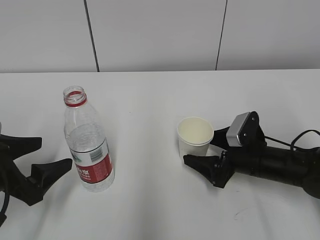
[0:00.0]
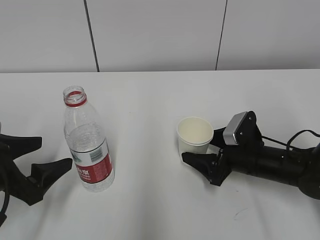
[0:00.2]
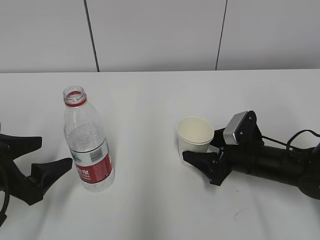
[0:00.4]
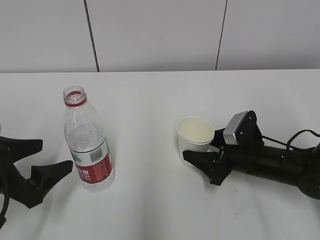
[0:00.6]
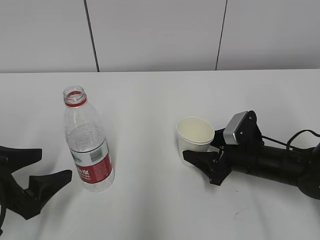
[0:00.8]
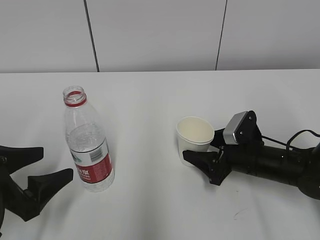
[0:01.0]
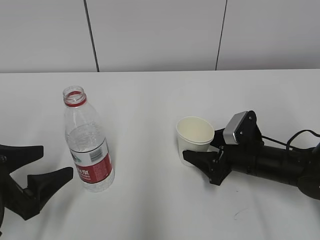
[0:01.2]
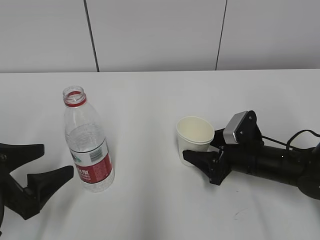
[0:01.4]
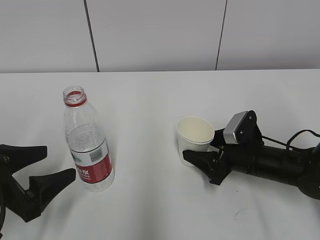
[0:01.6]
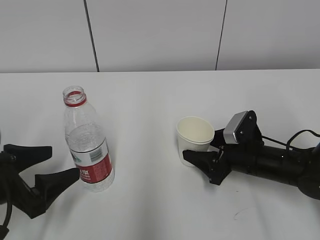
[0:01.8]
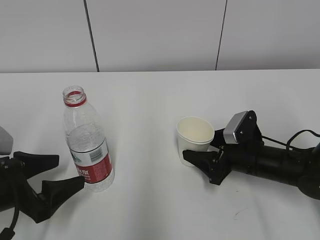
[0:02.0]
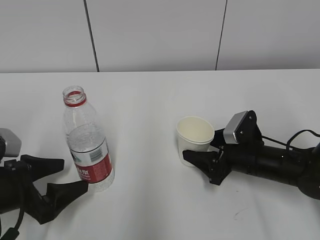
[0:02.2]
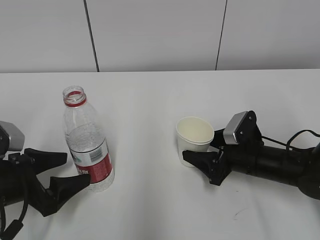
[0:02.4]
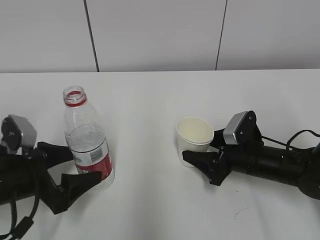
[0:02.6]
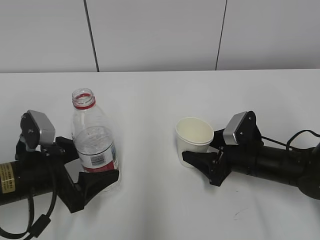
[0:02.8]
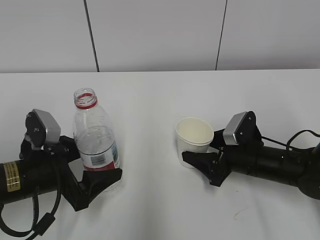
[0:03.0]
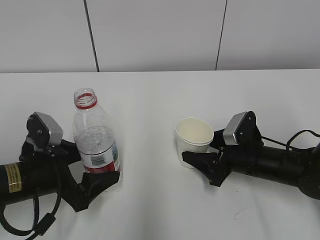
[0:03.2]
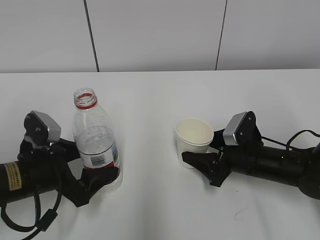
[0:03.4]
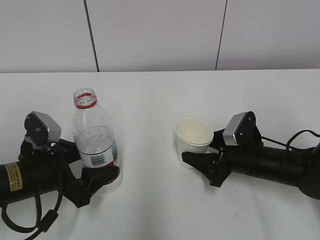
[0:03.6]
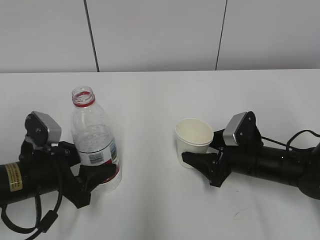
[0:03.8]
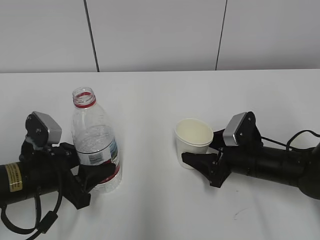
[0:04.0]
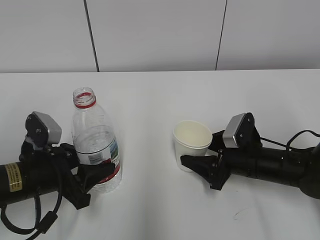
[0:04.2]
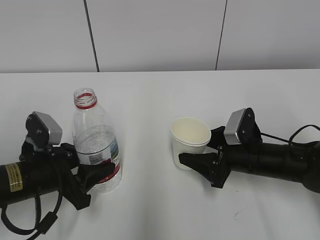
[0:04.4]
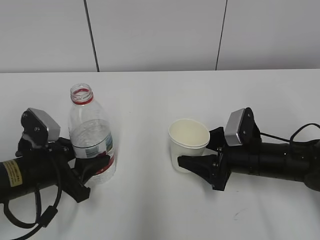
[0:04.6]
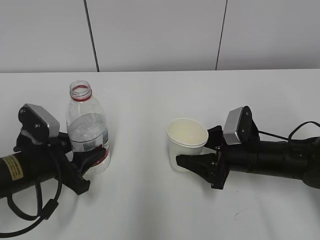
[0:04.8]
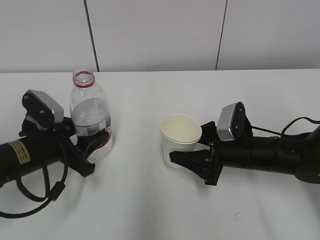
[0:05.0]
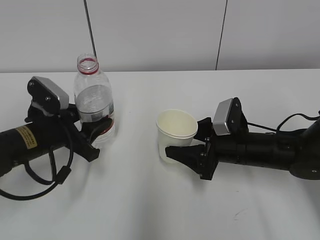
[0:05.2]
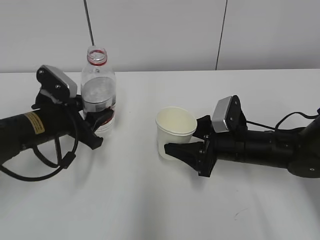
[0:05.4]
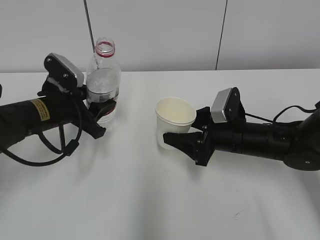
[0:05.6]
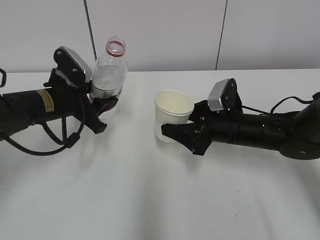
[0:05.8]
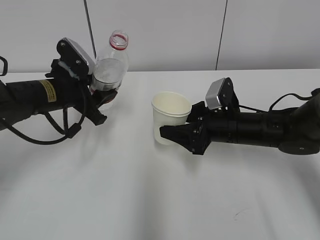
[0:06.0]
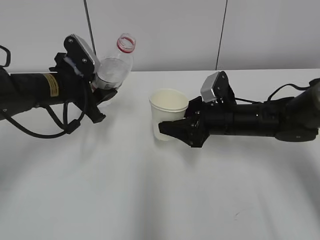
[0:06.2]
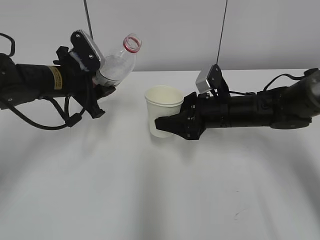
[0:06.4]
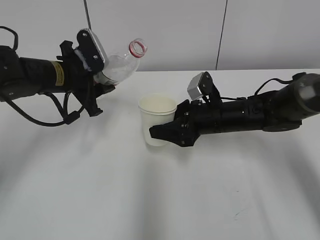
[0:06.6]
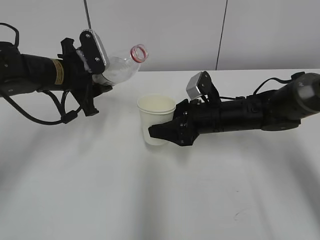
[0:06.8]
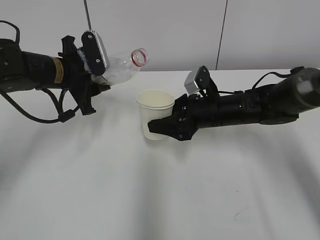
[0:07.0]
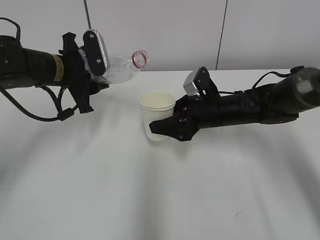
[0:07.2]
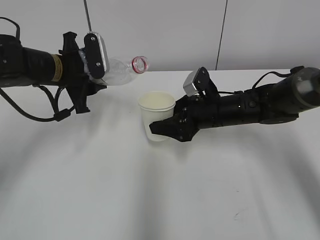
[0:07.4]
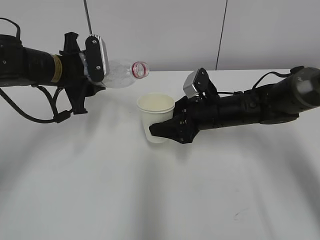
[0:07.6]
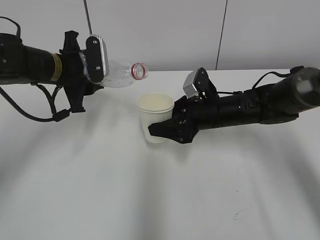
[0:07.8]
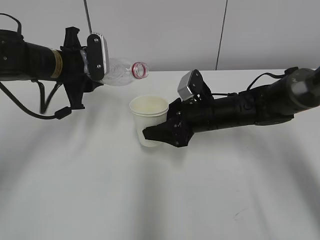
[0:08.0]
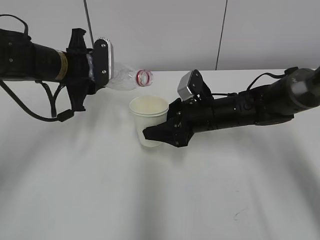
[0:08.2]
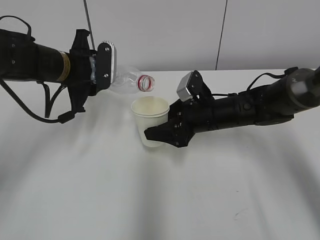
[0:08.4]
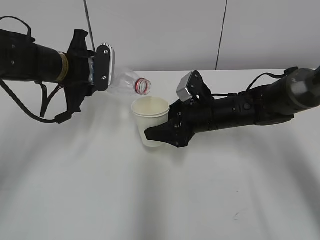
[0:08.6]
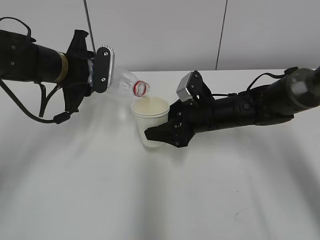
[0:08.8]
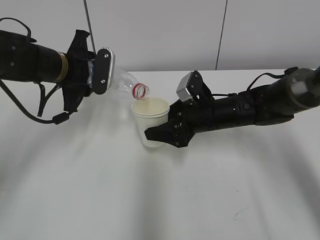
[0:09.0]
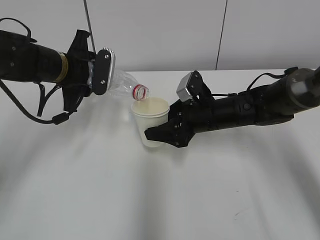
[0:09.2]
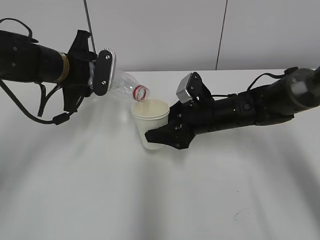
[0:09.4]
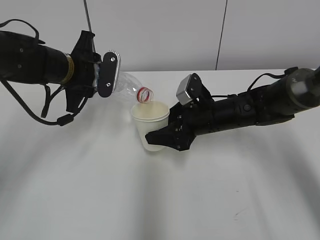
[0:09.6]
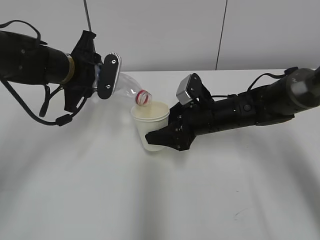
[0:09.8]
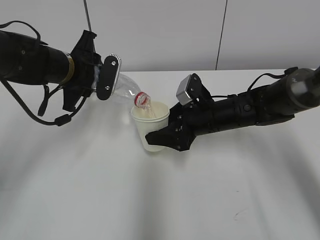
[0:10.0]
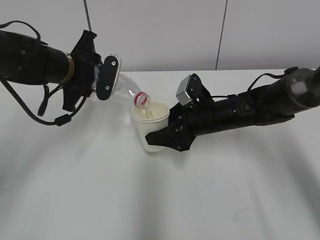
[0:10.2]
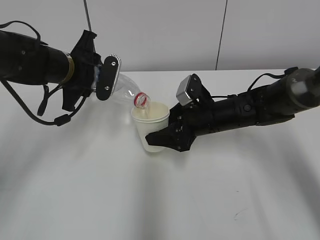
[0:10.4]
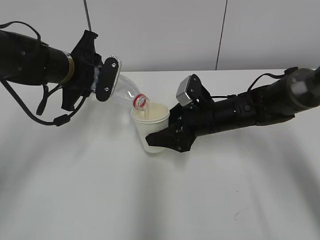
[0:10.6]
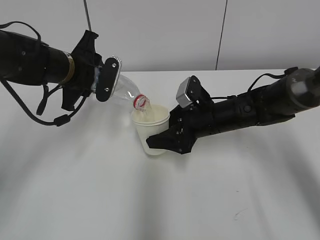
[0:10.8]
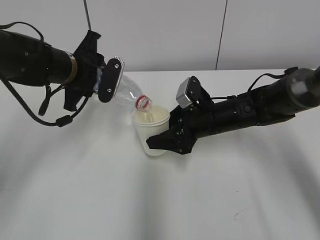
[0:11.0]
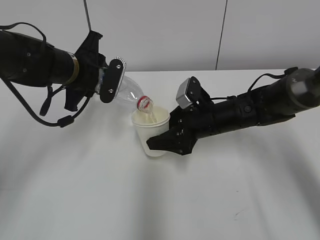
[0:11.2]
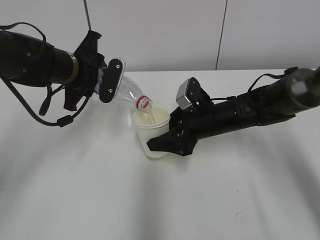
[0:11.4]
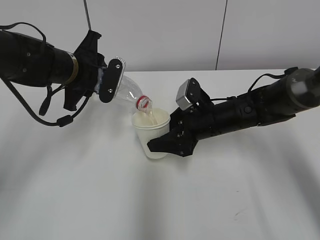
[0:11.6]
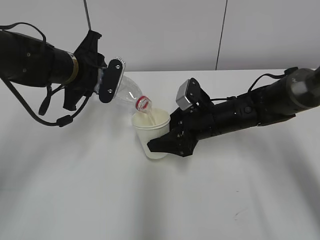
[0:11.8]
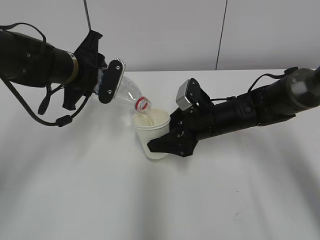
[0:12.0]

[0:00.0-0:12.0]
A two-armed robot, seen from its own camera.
Step, 0:02.2 to 0:06.6: Lift the paper cup with the right hand.
Step, 0:06.8 to 0:11.0: Fill water with the right hand.
Step, 0:06.8 to 0:11.0: Pour water with the left hand.
0:00.0 to 0:01.6: The right gripper closes up.
0:01.6 to 0:03.0: The left gripper shifts some 5 cm to the right.
0:03.0 to 0:04.4: The left gripper closes its fingers.
0:04.4 to 0:06.0: The right gripper changes place by approximately 5 cm. The left gripper moves forward and upward, roughly 15 cm.
0:07.6 to 0:09.0: The grippers stay close to where they were, moving slightly.
0:09.0 to 0:12.0: The grippers make only small movements.

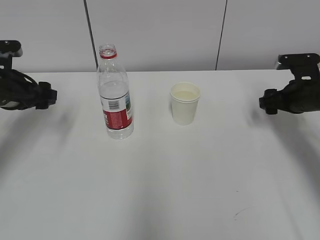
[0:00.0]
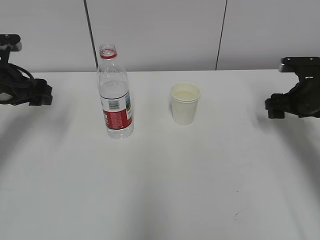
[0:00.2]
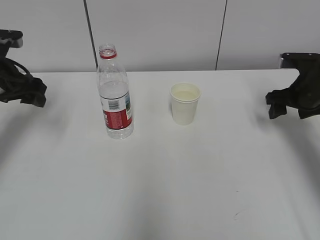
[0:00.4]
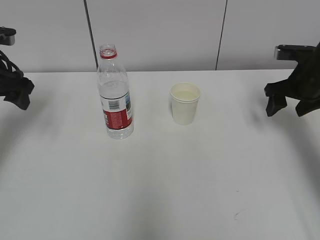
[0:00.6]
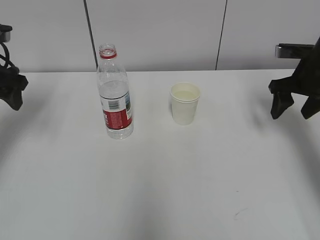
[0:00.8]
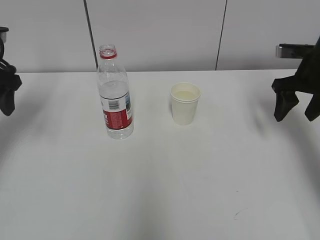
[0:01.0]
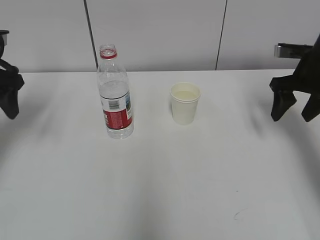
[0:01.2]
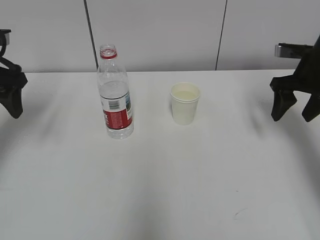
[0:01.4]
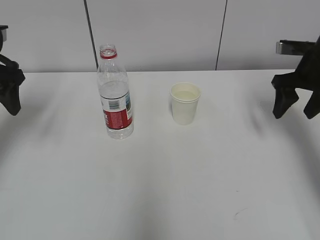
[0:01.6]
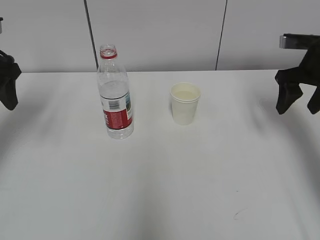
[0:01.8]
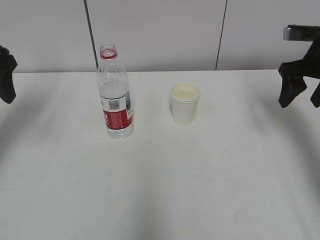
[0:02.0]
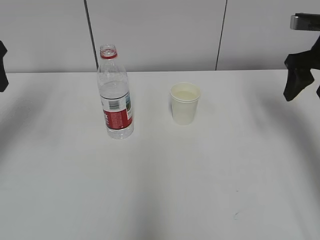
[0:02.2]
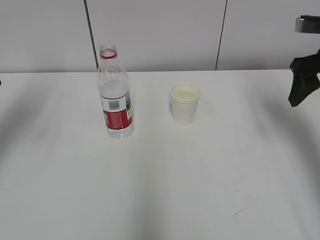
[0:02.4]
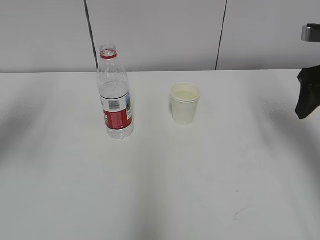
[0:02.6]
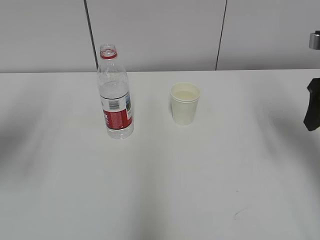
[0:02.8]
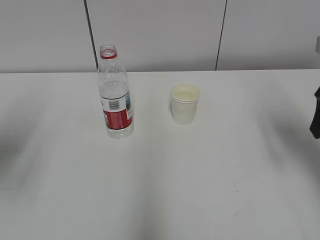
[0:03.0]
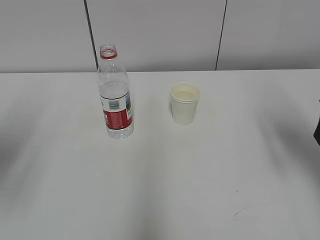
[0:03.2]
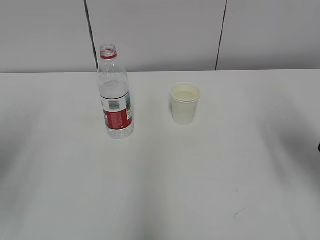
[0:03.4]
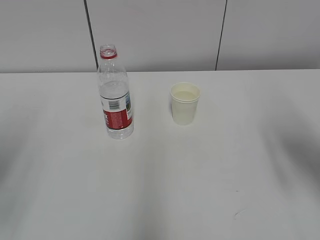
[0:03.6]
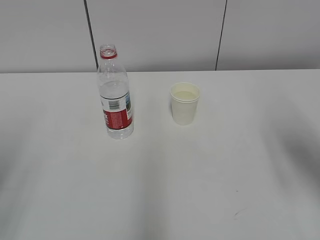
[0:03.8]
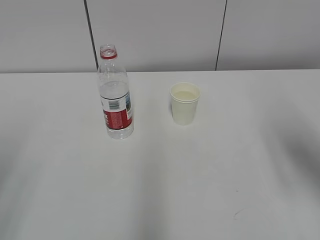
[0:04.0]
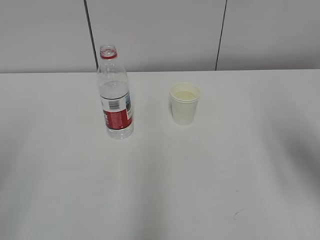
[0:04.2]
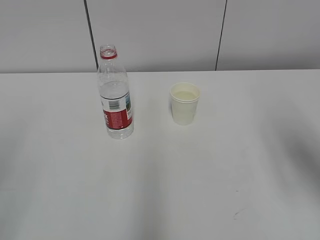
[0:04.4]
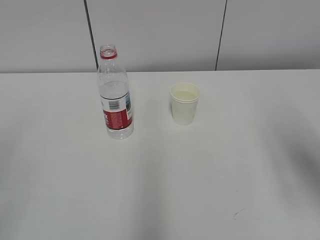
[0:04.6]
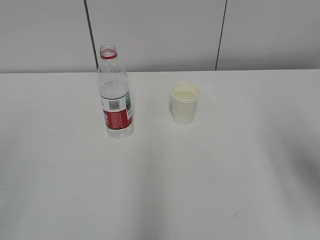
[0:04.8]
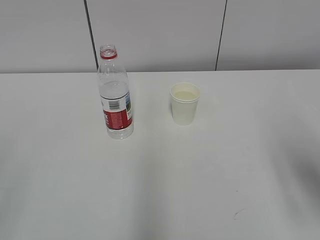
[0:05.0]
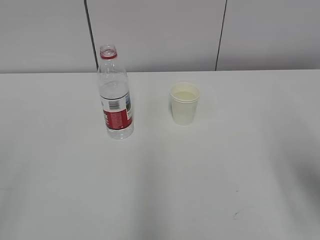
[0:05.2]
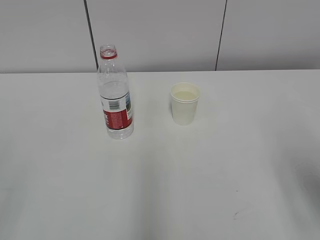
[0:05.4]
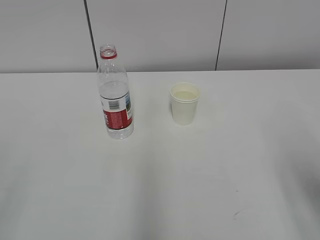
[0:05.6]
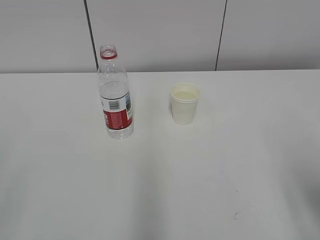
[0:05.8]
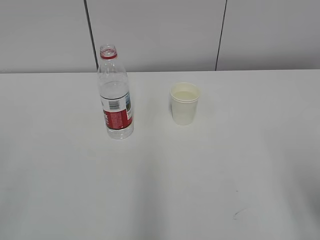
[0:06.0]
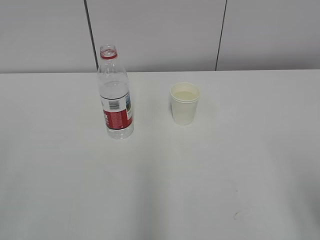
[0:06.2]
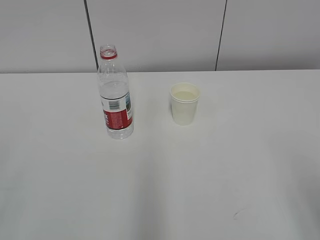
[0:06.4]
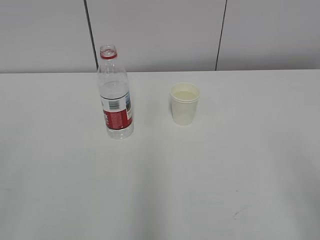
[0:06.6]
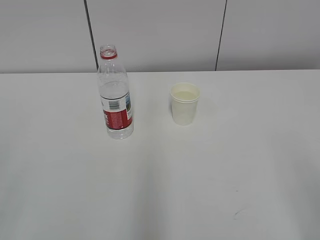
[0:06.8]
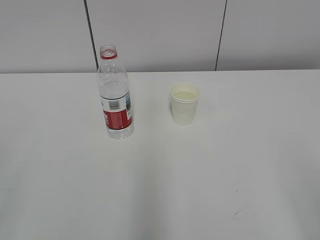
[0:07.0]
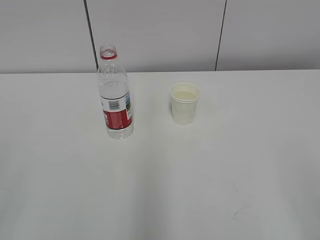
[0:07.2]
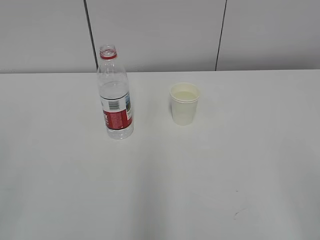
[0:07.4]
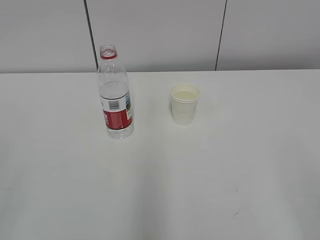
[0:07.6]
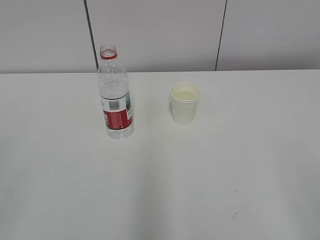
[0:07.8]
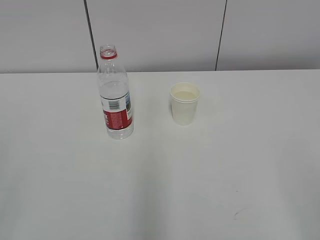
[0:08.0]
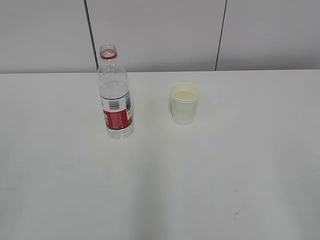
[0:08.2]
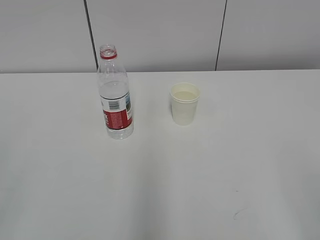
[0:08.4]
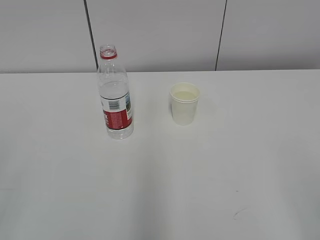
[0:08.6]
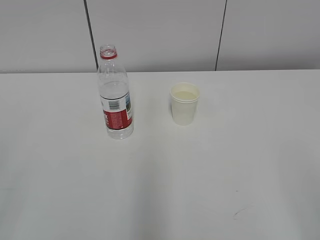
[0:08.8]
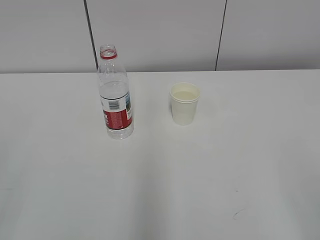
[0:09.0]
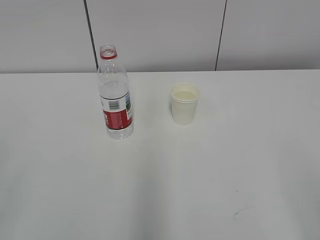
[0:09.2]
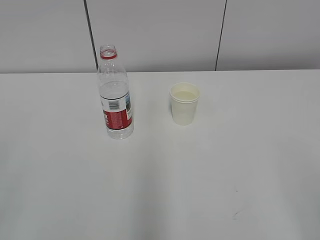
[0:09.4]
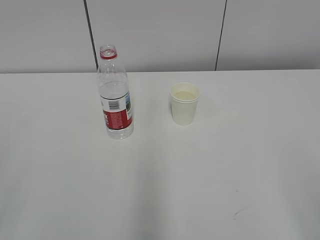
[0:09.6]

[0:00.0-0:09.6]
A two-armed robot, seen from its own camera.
0:00.0 to 0:01.6: Both grippers travel together upward, some 10 cm.
0:01.6 to 0:03.2: The left gripper shifts roughly 15 cm backward, while the right gripper travels backward and upward by some 15 cm.
0:03.2 to 0:04.8: The right gripper moves backward, about 10 cm. Meanwhile the left gripper heads backward, covering some 15 cm.
0:04.8 to 0:06.4: The right gripper is displaced backward and downward by approximately 10 cm.
0:08.0 to 0:09.6: Neither gripper changes place.
